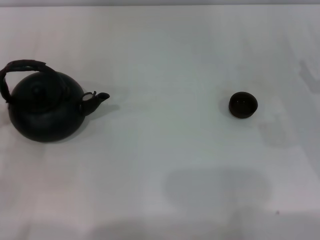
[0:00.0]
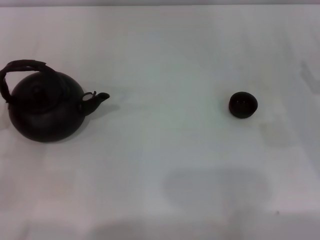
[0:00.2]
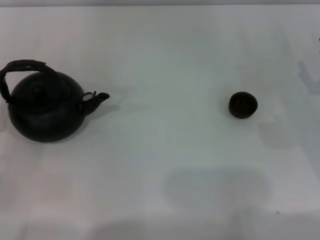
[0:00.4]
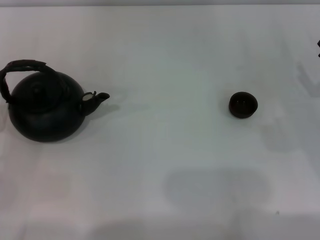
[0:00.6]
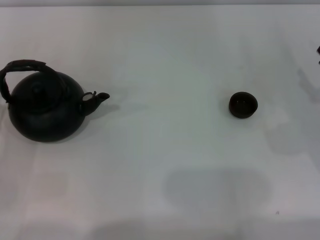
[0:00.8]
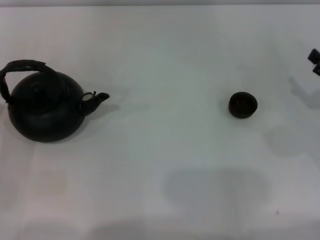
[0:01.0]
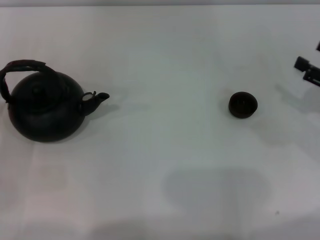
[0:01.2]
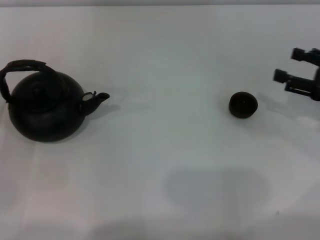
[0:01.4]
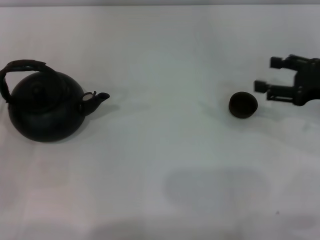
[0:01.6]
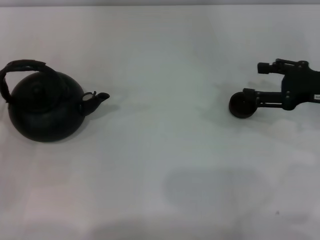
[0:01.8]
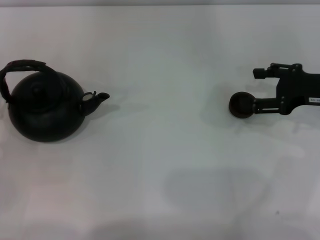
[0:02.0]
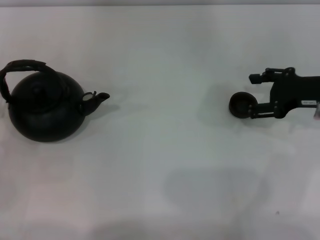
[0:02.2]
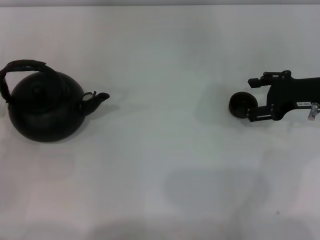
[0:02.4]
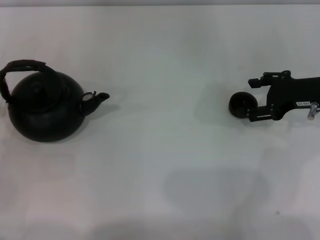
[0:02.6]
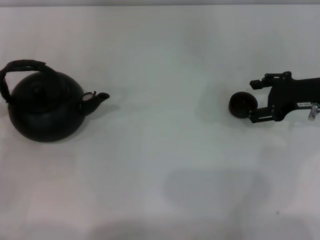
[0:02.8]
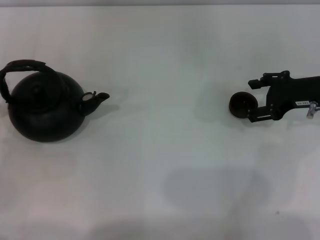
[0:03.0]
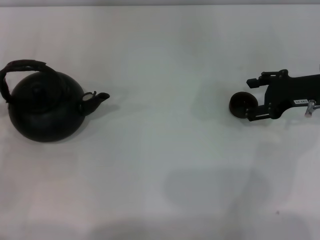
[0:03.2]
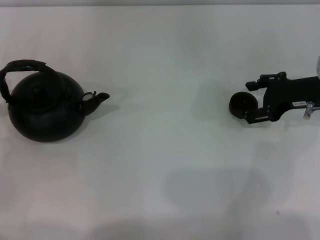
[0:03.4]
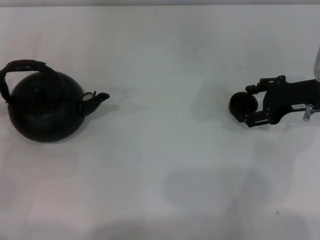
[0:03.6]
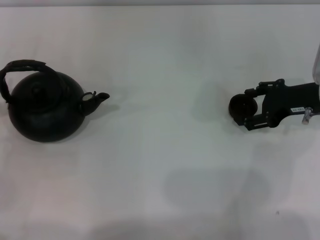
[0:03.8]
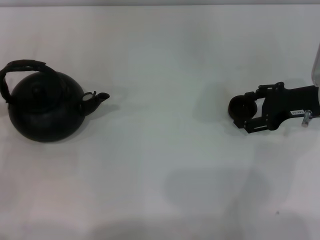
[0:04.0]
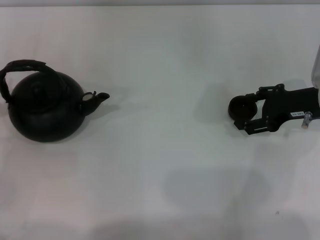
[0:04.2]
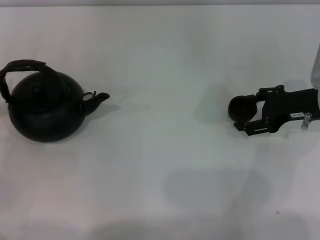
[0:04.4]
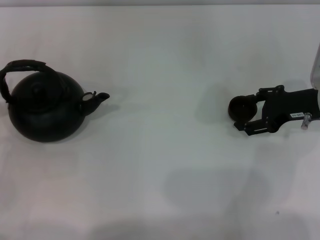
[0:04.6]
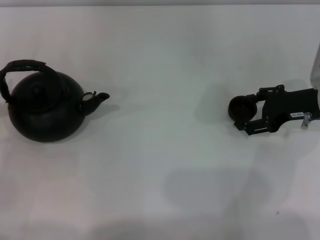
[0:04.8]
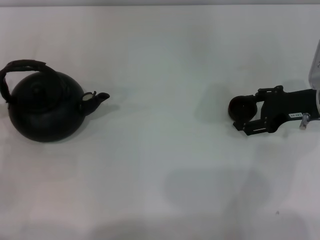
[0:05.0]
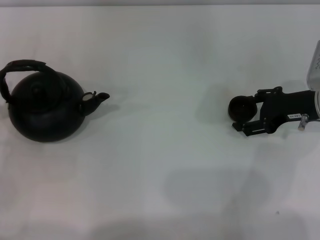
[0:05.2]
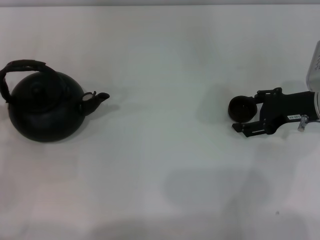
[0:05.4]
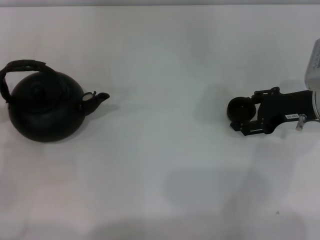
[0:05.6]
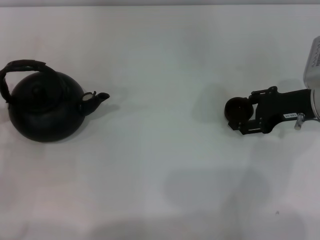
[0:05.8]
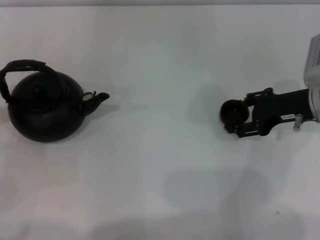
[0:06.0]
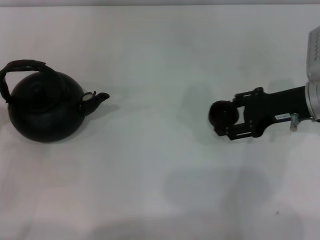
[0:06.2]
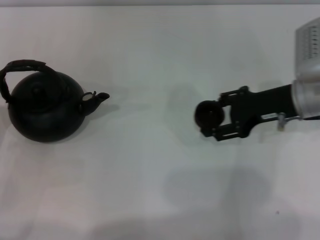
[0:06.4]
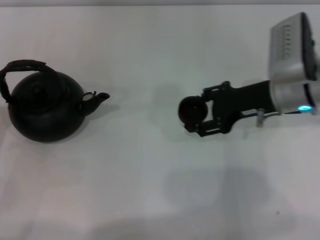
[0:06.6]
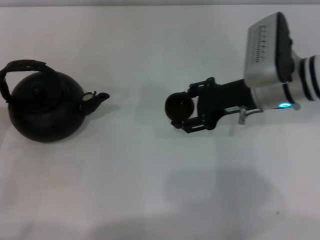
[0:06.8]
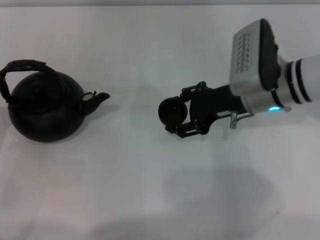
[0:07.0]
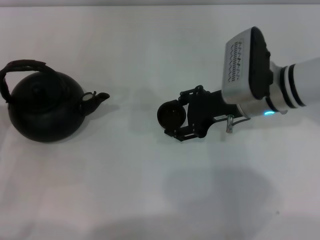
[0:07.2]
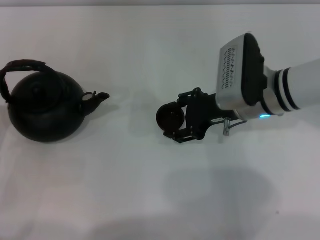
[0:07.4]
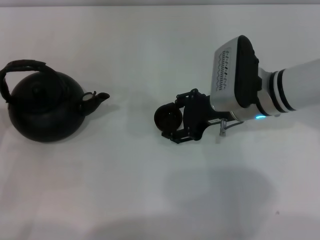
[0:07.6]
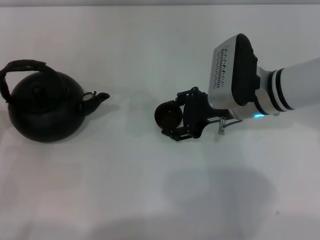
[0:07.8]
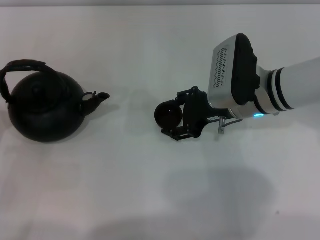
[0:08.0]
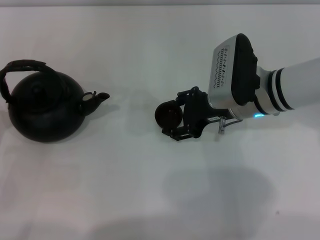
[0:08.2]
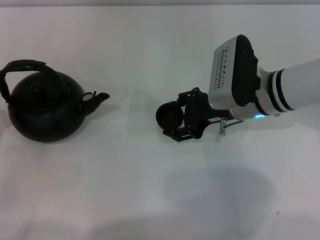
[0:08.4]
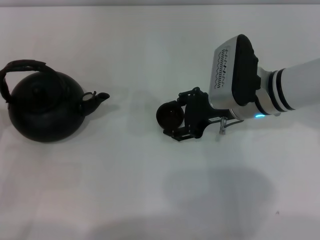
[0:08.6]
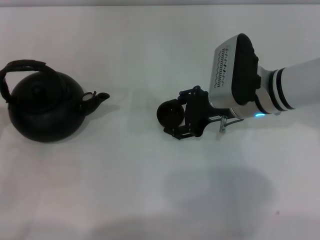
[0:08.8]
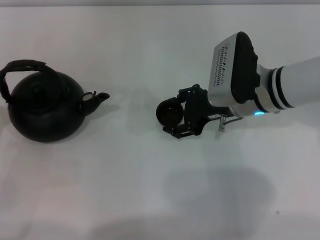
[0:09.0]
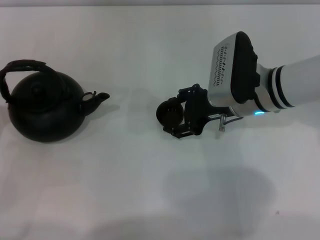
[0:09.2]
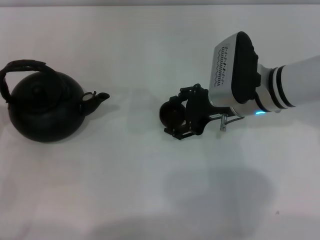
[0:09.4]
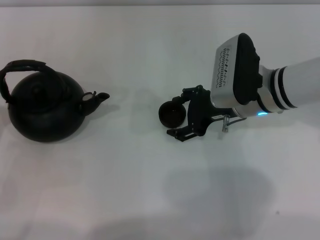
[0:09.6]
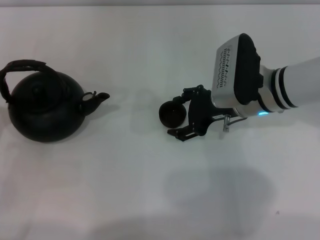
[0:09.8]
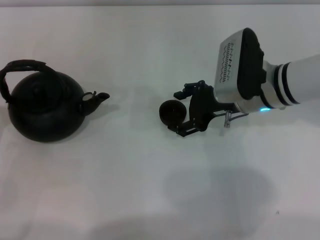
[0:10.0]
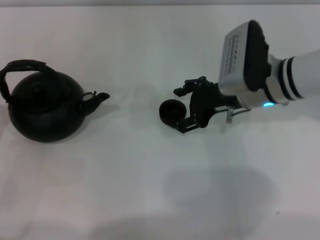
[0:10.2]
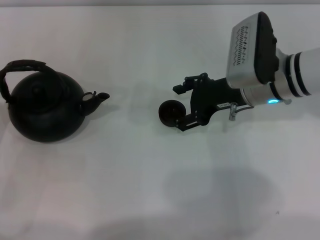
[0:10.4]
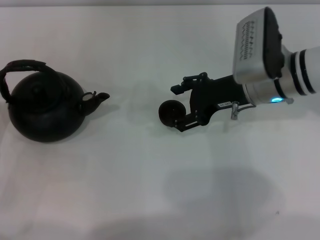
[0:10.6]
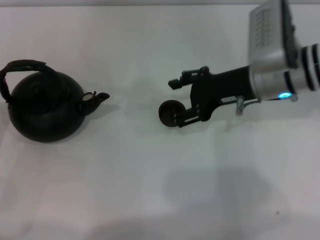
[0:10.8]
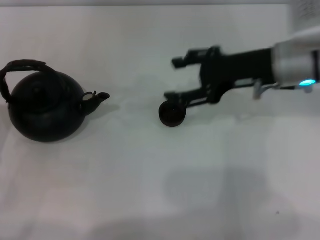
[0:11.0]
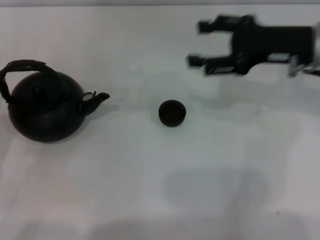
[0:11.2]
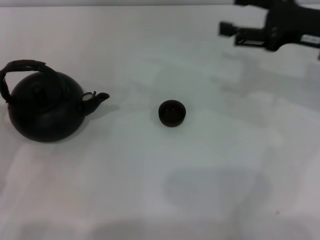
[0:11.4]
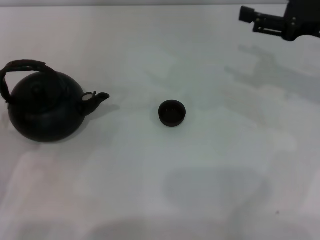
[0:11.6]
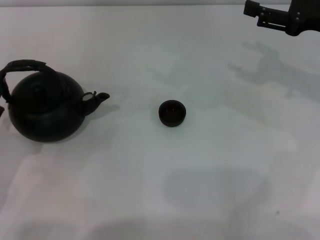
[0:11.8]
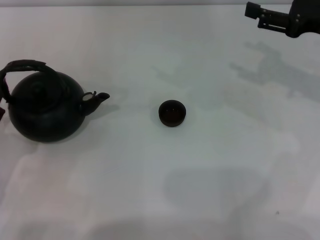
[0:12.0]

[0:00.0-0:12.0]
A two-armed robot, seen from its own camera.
Task of the whole recording: Grasp the handle of the teapot with one hand and pour tea into the teacup.
Step, 0:00.0 to 0:06.0: Pick up the teacup with the right gripper.
Step, 0:06.4 to 0:10.8: Place the teacup in the center of view with the right gripper.
0:00.0 to 0:01.6: The right gripper shifts about 5 cm upward.
0:01.6 to 0:03.0: The right gripper changes place by some 5 cm.
0:03.0 to 0:04.4: The grippers move only a little.
0:04.4 to 0:06.0: The right gripper closes its fingers.
0:06.0 to 0:07.6: The right gripper moves to the left, about 10 cm.
0:07.6 to 0:09.0: Both grippers stay put.
0:09.0 to 0:10.4: The right gripper opens.
0:10.4 to 0:12.0: The left gripper travels backward by about 5 cm; the right gripper shifts roughly 15 cm to the right and upward.

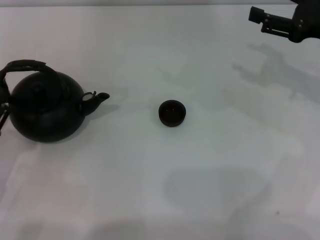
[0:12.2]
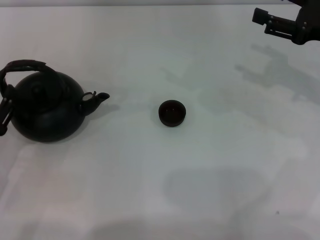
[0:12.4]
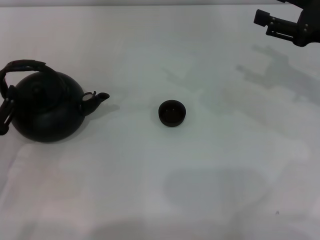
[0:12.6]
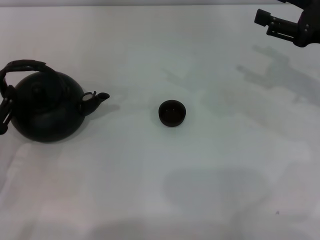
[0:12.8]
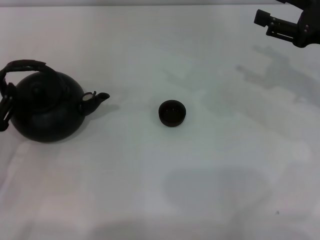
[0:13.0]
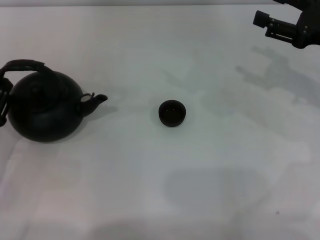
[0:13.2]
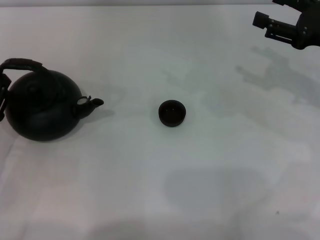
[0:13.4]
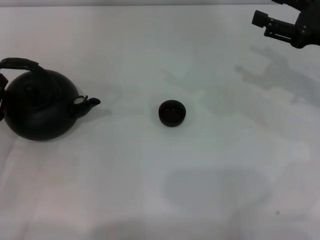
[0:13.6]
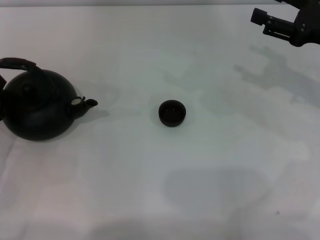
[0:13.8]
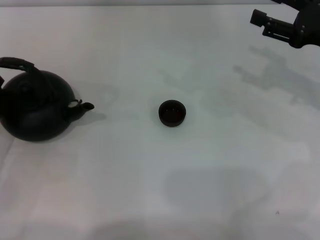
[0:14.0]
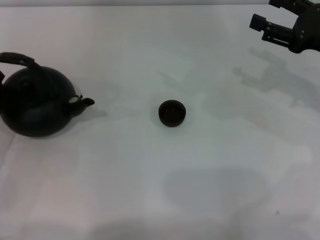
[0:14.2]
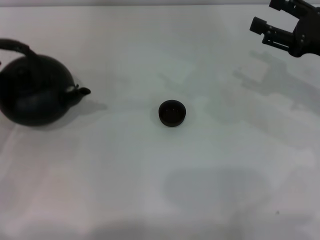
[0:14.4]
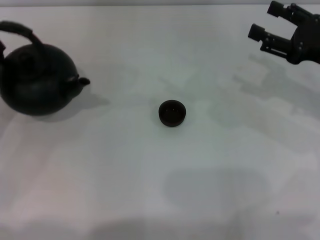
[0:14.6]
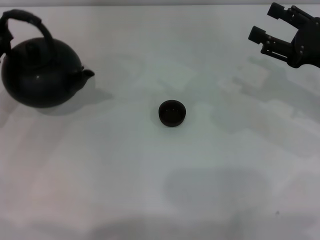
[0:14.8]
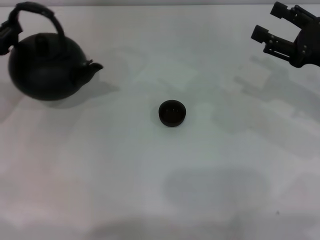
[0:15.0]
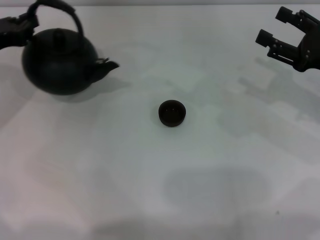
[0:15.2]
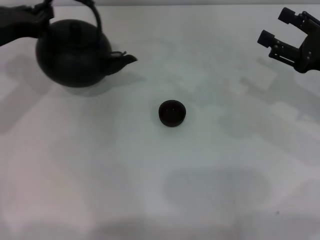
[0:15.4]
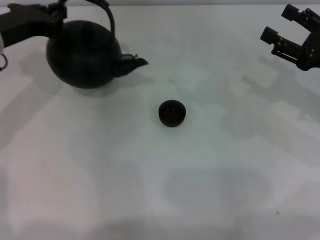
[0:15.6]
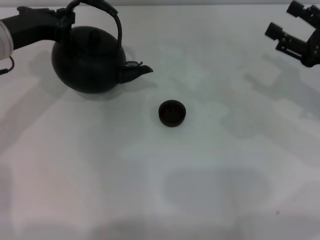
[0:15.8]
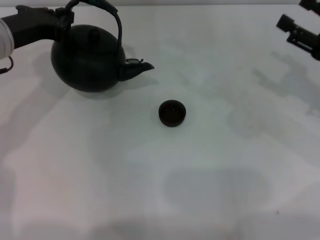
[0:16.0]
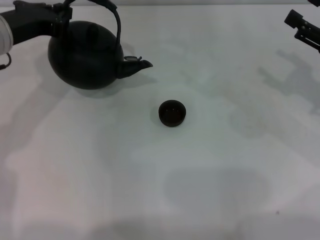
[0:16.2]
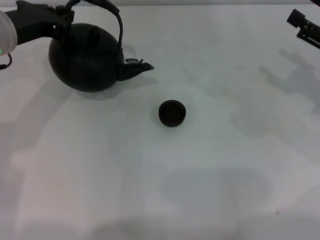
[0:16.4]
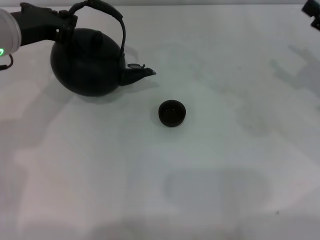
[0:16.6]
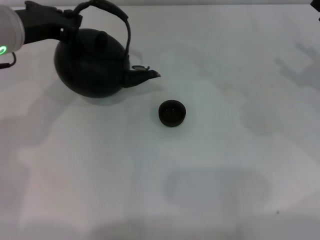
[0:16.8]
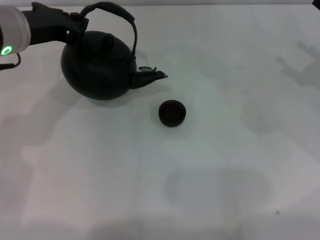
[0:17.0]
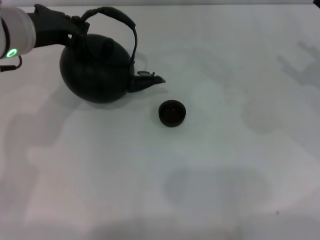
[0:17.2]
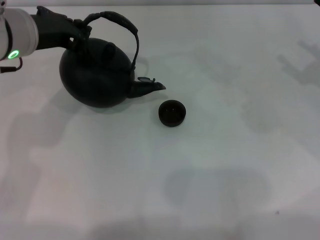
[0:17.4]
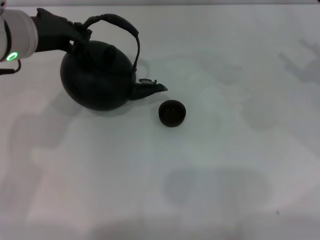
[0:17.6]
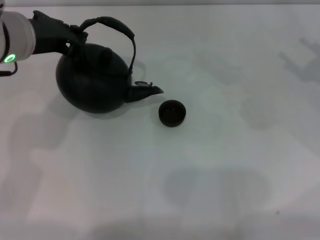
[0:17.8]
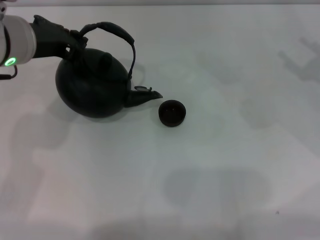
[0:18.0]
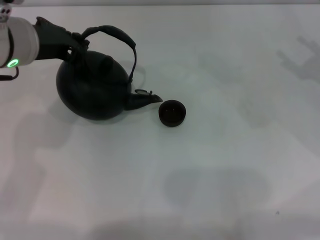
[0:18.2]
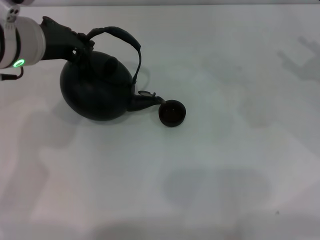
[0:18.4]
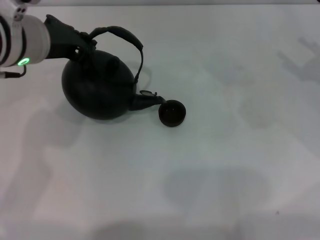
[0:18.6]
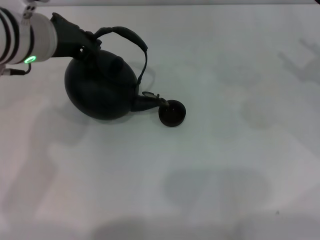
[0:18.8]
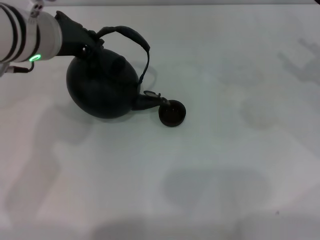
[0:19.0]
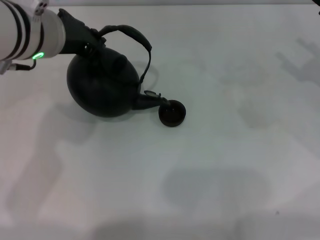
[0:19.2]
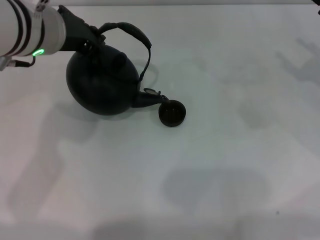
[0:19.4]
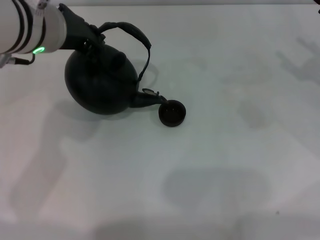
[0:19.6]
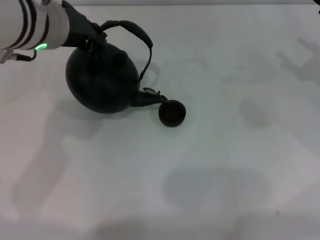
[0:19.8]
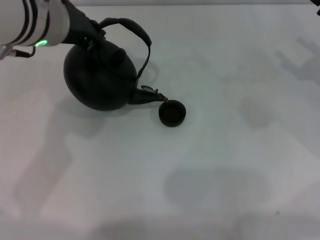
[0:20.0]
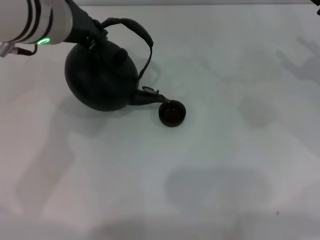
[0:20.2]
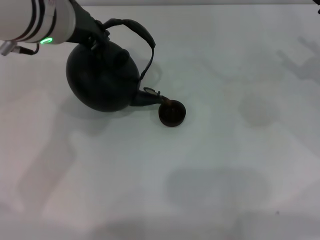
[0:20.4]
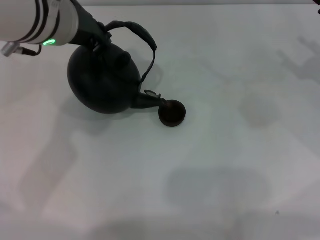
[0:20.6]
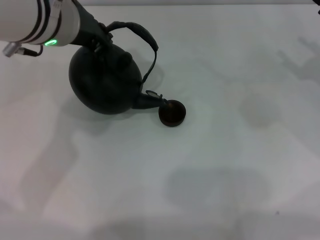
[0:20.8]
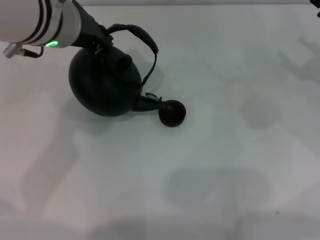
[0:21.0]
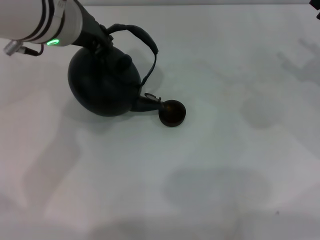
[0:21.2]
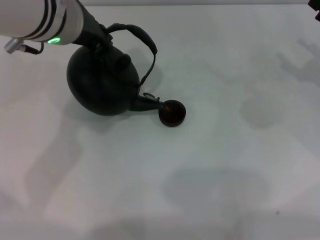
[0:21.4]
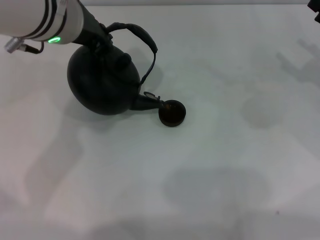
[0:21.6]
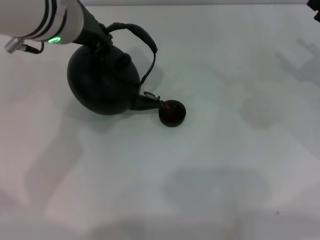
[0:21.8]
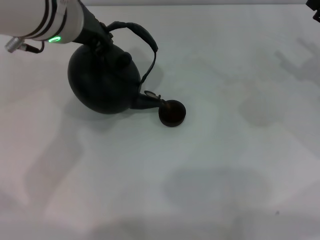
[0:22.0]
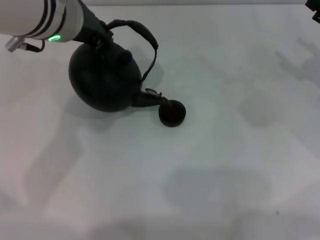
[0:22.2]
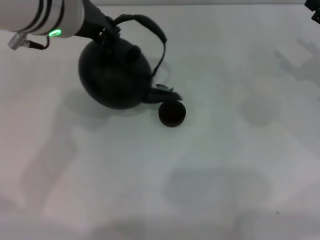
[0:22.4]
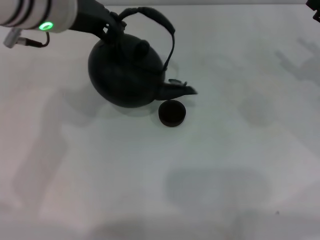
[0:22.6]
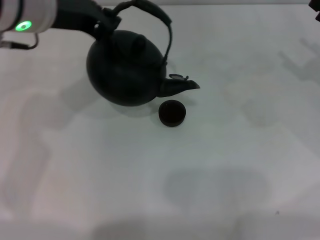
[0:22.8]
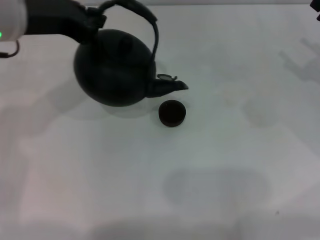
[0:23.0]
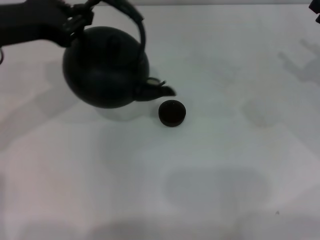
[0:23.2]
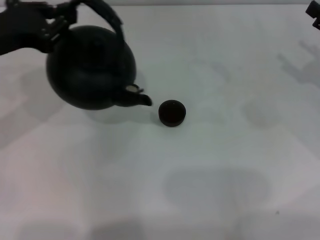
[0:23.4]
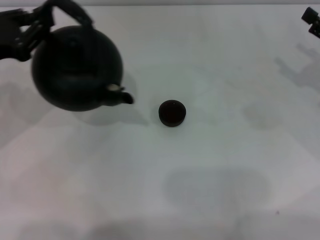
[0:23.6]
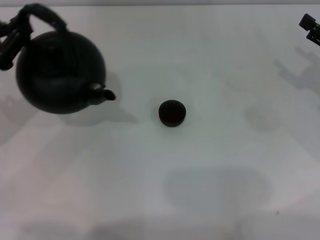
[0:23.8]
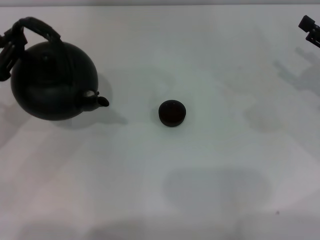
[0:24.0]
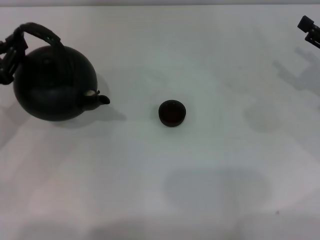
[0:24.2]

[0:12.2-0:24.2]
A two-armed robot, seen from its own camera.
Task of the whole recording: Grasp the handle of the teapot with one hand and pour tea into the teacup.
Step, 0:12.2 to 0:14.8: Pick up the teapot with the left gripper.
Step, 0:15.0 to 0:22.8: Pour tea into the teacup with the left gripper.
0:12.2 to 0:13.8: The left gripper closes up.
0:13.8 to 0:15.2: The left gripper moves forward and upward, some 15 cm.
0:15.2 to 0:16.6: The left gripper shifts approximately 10 cm to the right and upward.
0:16.6 to 0:18.2: The grippers stay close to where they were, moving slightly.
0:18.2 to 0:19.8: The grippers stay close to where they were, moving slightly.
0:19.8 to 0:22.6: The grippers stay close to where they were, moving slightly.
0:22.6 to 0:24.2: The left gripper goes roughly 25 cm to the left and downward.
